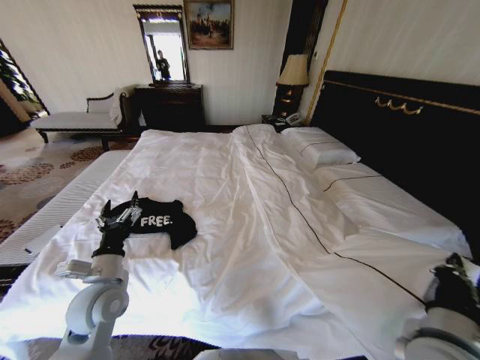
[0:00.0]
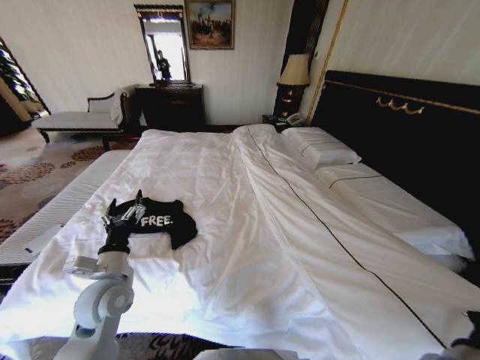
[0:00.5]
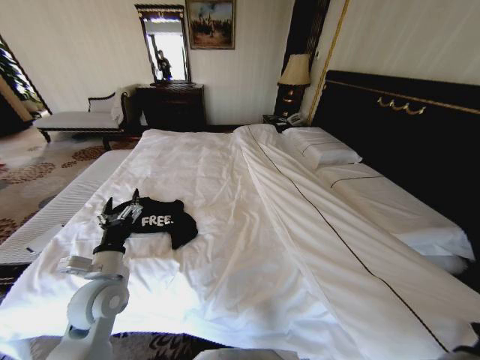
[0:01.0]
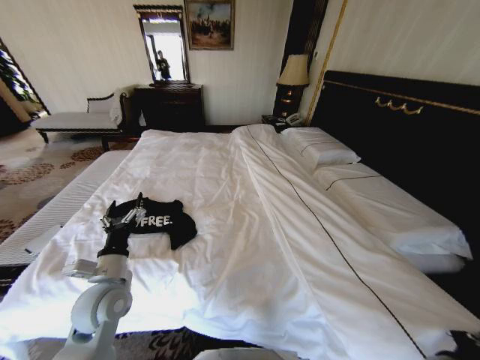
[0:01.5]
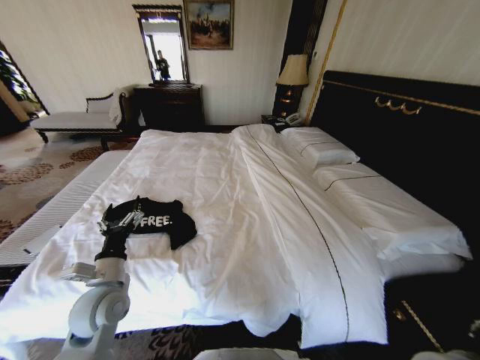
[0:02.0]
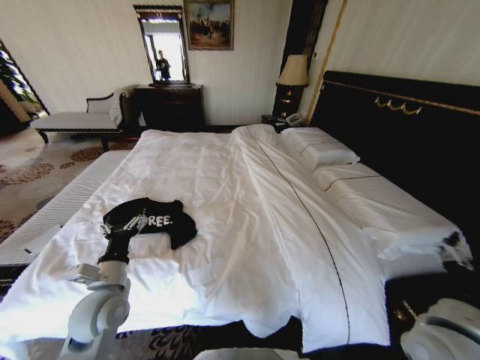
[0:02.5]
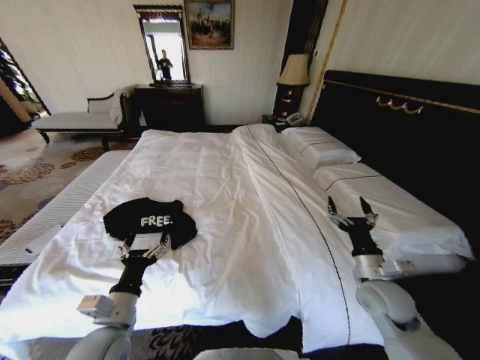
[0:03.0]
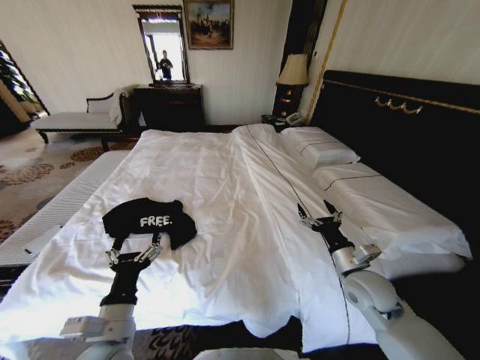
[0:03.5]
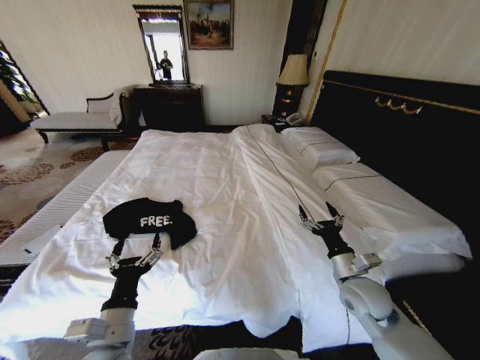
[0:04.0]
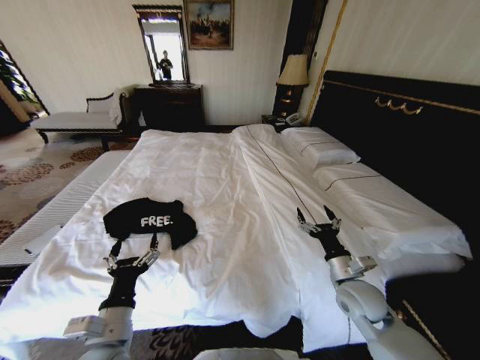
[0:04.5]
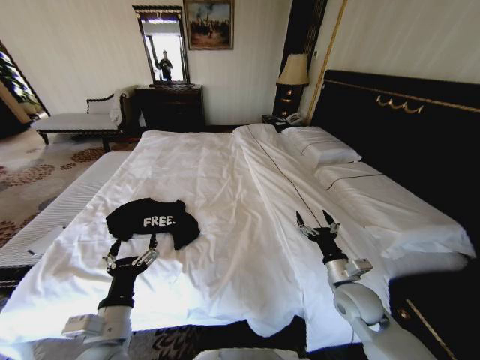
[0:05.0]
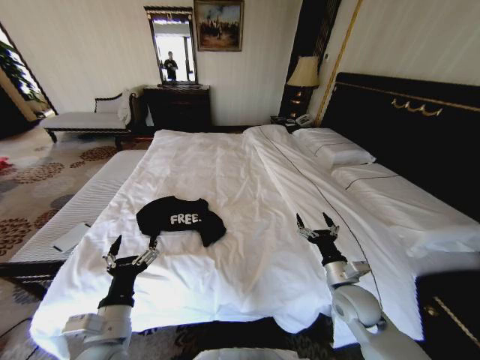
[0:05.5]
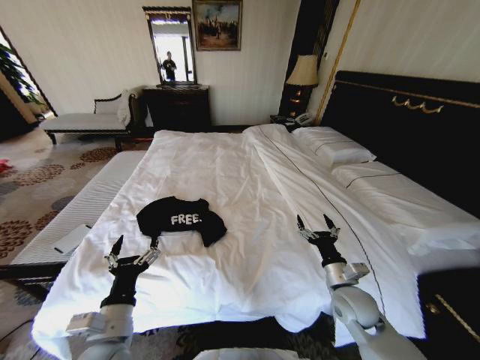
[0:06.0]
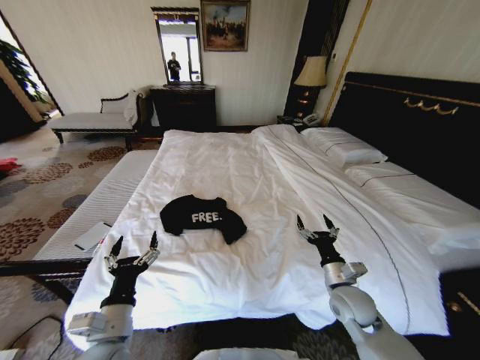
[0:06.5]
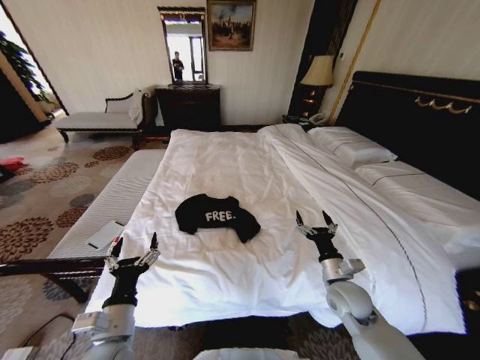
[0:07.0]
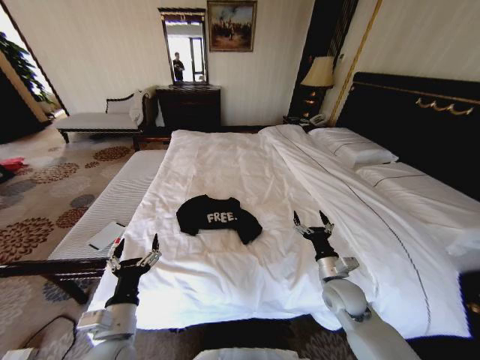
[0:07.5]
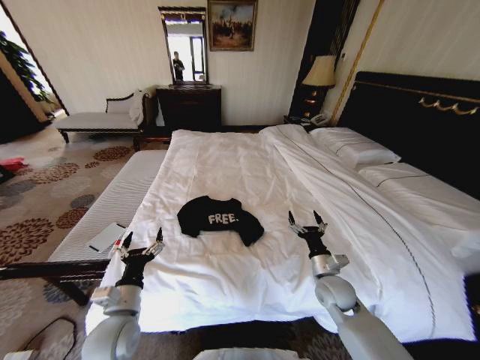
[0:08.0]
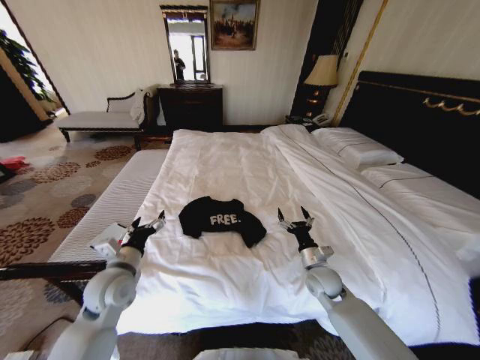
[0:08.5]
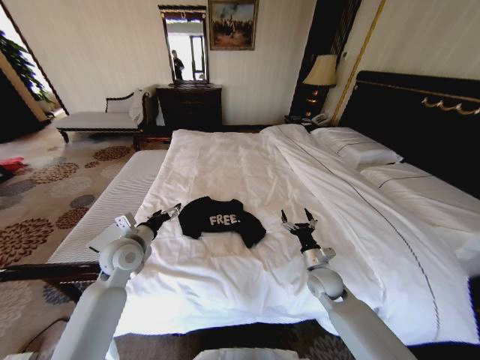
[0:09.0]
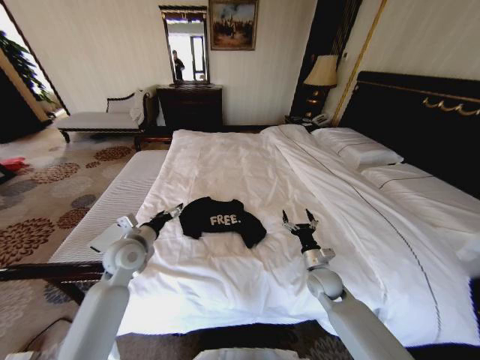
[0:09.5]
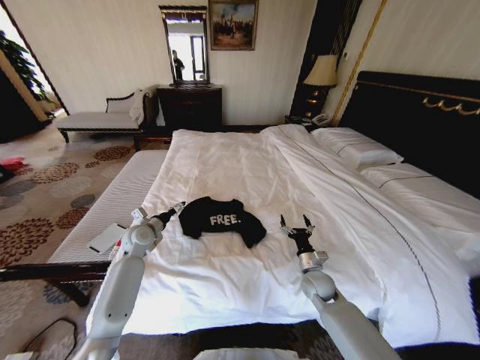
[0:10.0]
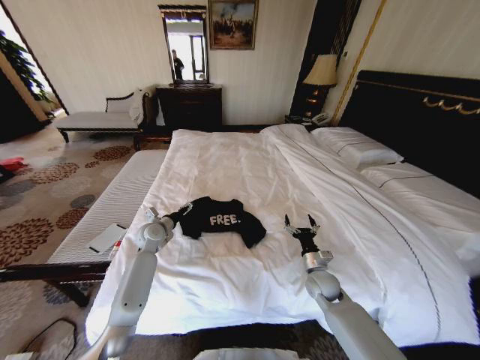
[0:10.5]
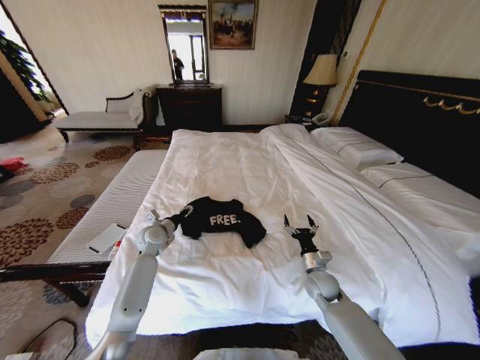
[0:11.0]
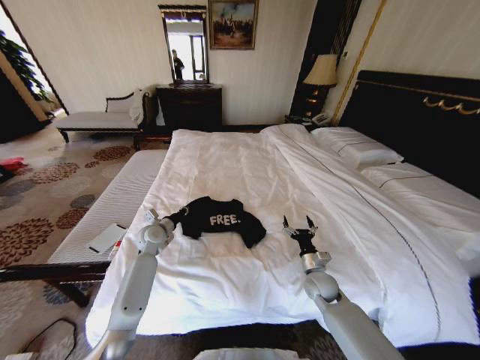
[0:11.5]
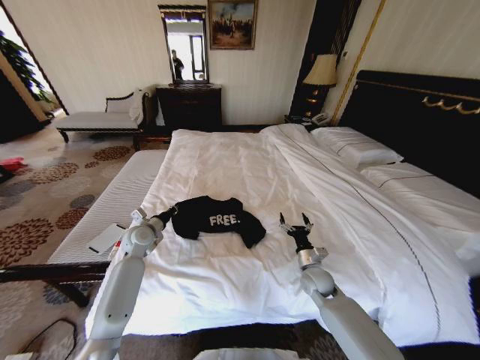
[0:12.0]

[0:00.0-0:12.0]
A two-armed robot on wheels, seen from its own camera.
Task of the whole recording: Fold the clothes on the bed.
0:00.0 to 0:02.0: The right gripper opens up.
0:02.0 to 0:04.0: The left gripper travels backward and to the right by approximately 10 cm. The right gripper moves forward and downward, about 15 cm.
0:06.0 to 0:08.0: The left gripper ends up roughly 5 cm from where it was.
0:08.0 to 0:10.0: The right gripper goes some 5 cm downward; the left gripper moves forward, approximately 25 cm.
0:10.0 to 0:12.0: The left gripper closes up.

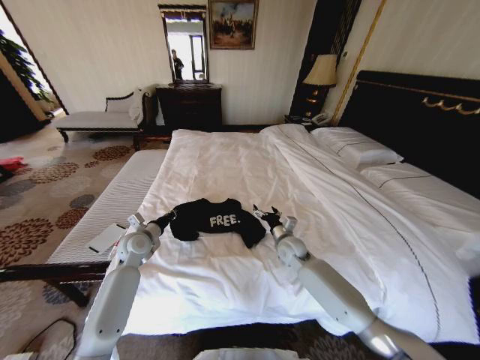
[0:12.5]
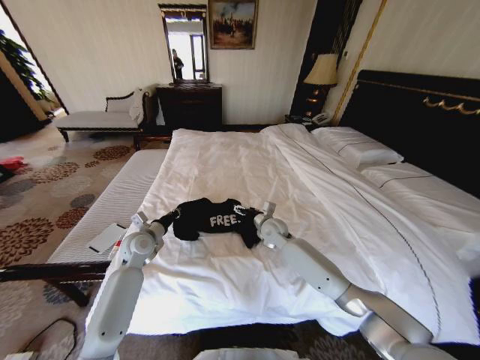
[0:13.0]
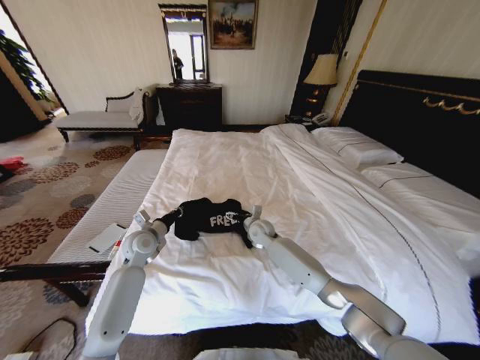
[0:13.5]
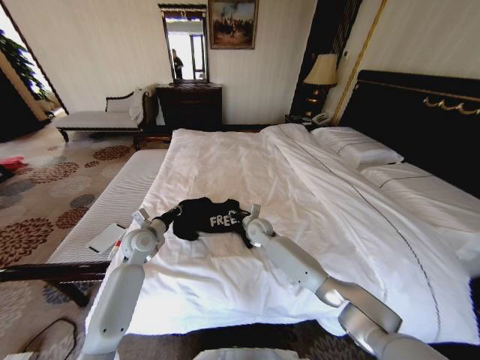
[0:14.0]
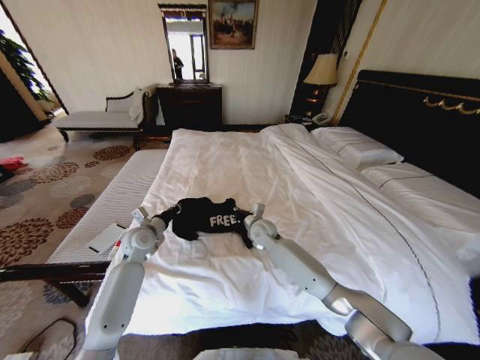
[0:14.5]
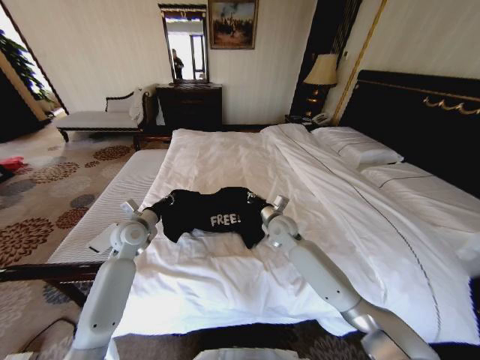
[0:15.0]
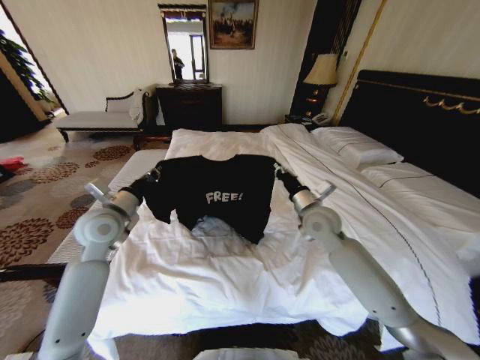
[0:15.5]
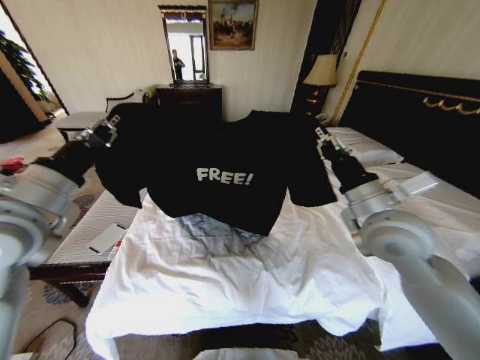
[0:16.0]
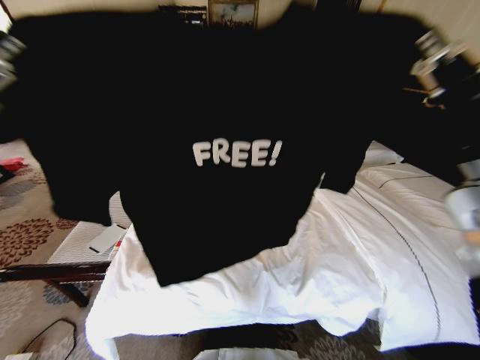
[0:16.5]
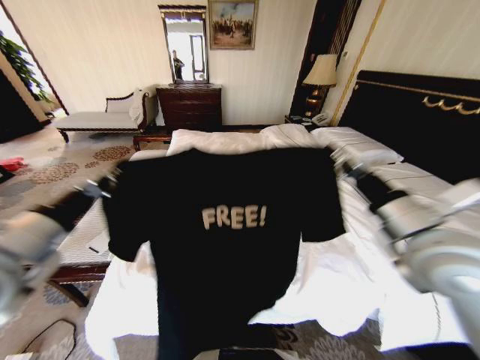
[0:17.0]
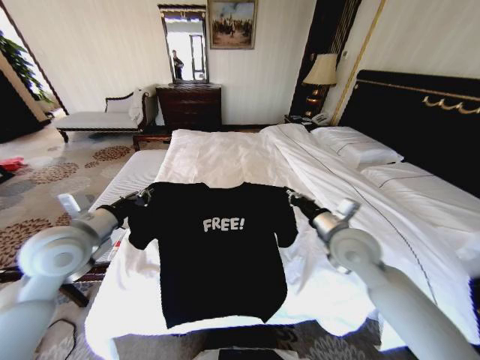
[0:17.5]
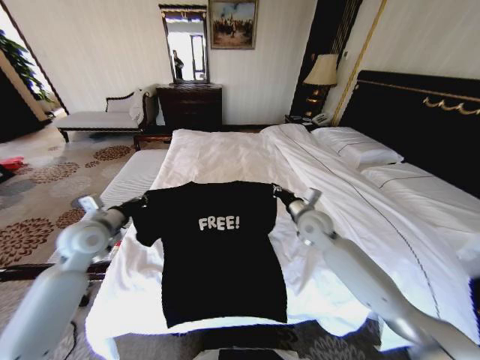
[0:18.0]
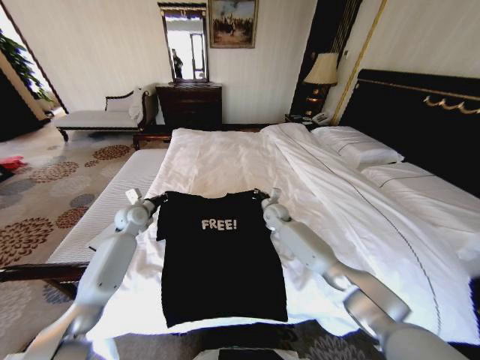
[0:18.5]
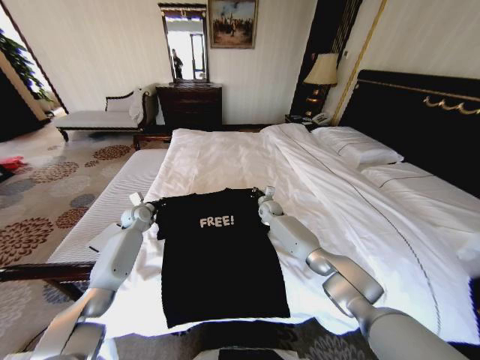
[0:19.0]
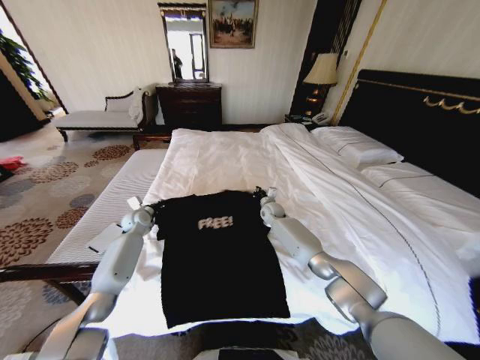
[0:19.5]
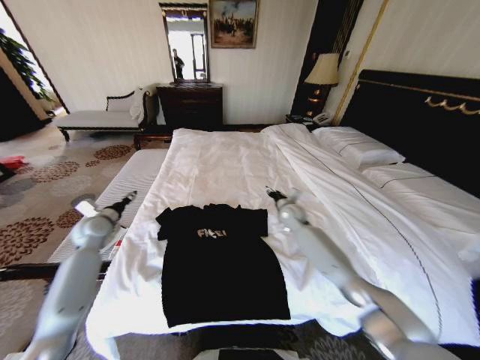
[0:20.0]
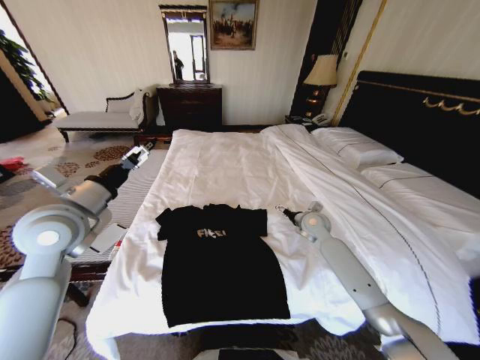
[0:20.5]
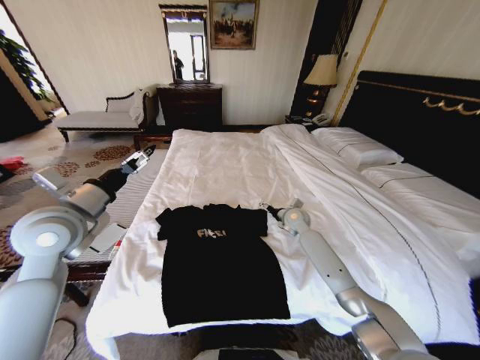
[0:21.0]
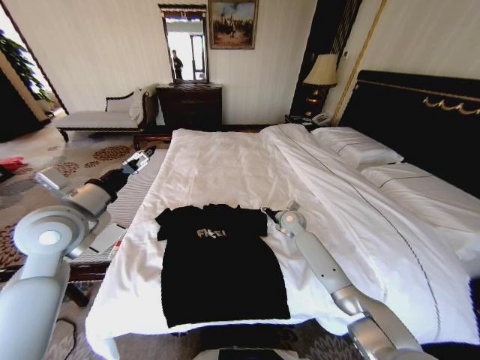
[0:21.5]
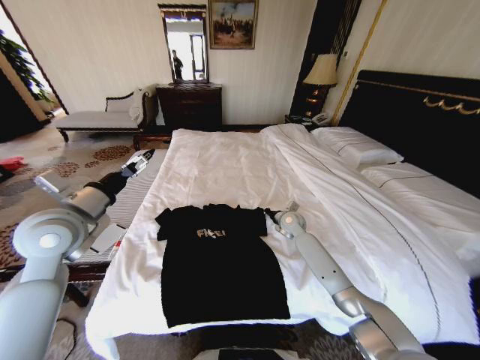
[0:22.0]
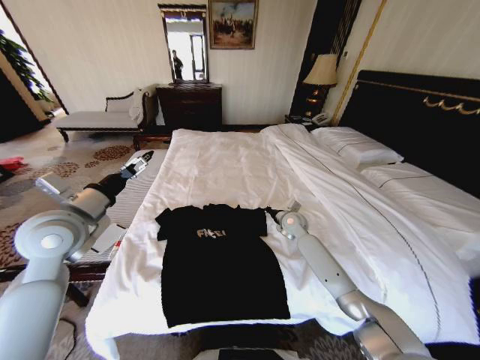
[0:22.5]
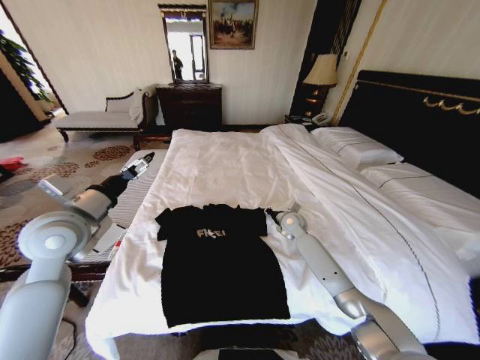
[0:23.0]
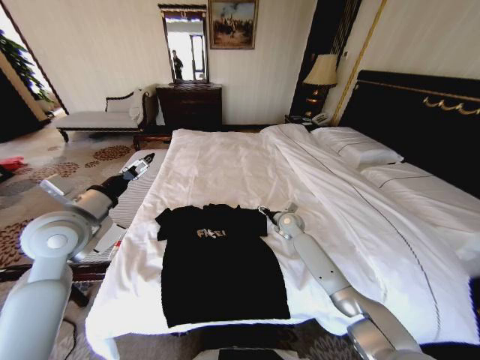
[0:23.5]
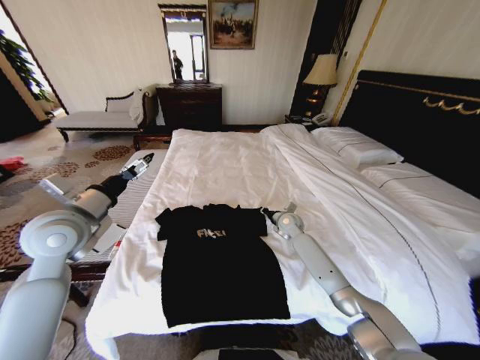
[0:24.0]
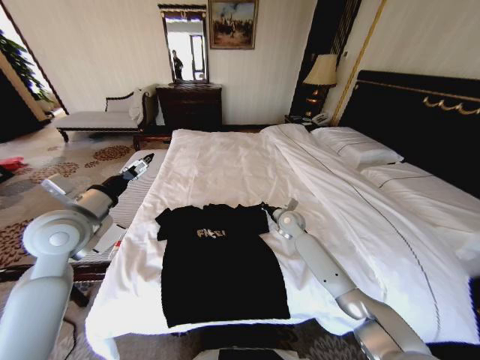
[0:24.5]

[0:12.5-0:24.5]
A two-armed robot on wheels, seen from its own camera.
Task of the whole recording: Fold the clothes on the bed.
0:12.5 to 0:14.5: The right gripper heads to the left and forward, covering some 10 cm, and closes.
0:14.5 to 0:16.5: The left gripper goes approximately 40 cm upward and backward; the right gripper travels upward, backward and to the right by about 50 cm.
0:16.5 to 0:18.5: The two grippers go roughly 50 cm forward and downward.
0:18.5 to 0:20.5: The left gripper travels backward and upward by some 25 cm, and opens up, while the right gripper travels to the right and backward by approximately 15 cm, and opens up.
0:20.5 to 0:22.5: The right gripper moves to the left, about 5 cm, and closes its fingers.
0:22.5 to 0:24.5: The right gripper opens, then closes once more.

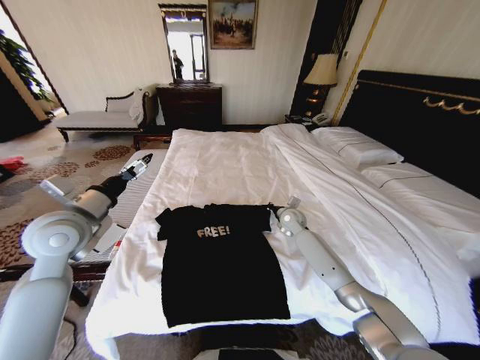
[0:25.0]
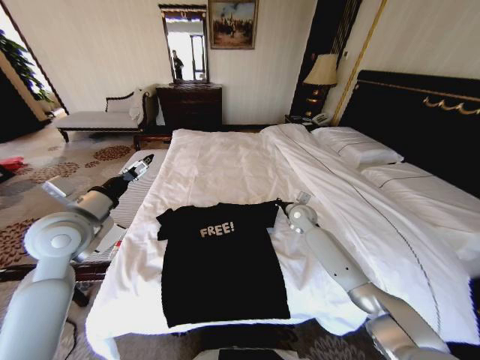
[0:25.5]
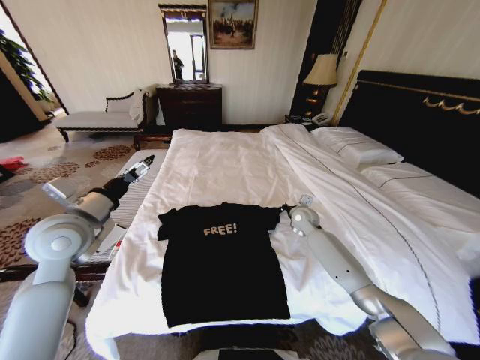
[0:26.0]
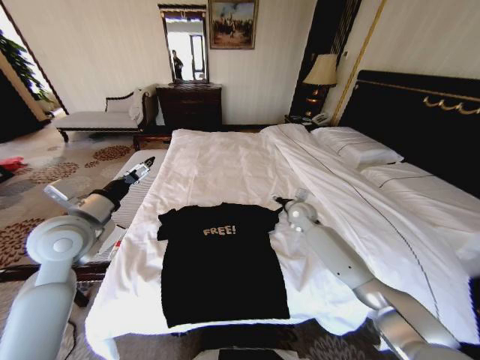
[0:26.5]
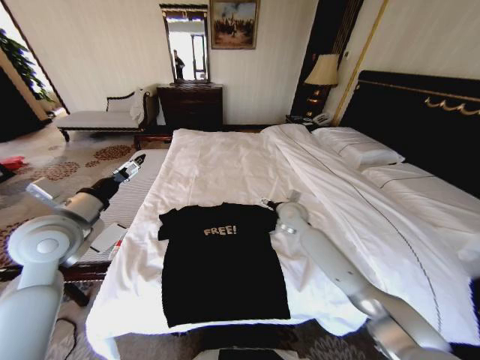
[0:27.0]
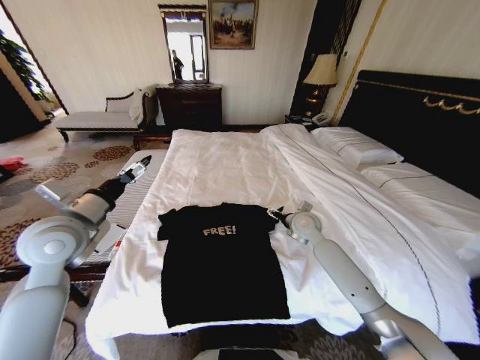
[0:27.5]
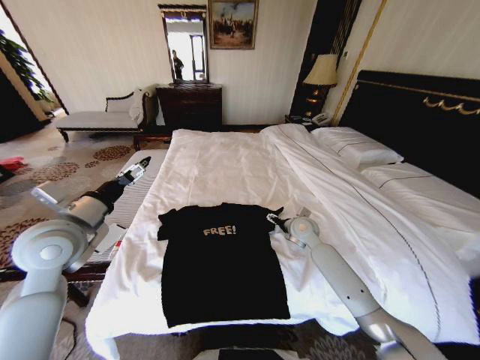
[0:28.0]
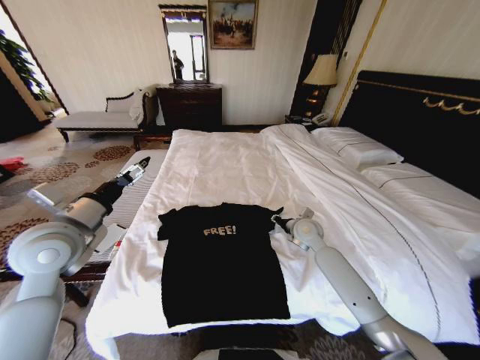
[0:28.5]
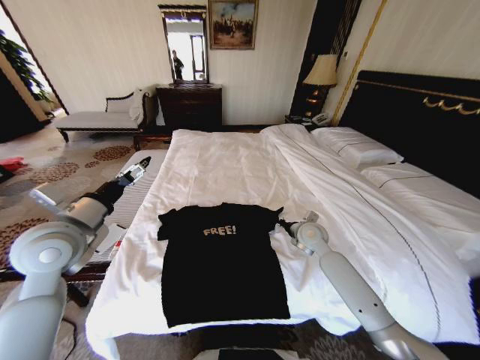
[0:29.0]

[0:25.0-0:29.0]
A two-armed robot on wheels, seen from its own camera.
Task of the whole recording: Fold the clothes on the bed.
0:25.0 to 0:27.0: The right gripper heads upward, covering about 5 cm, and opens up.
0:27.0 to 0:29.0: The right gripper moves backward, approximately 5 cm, and closes its fingers.
